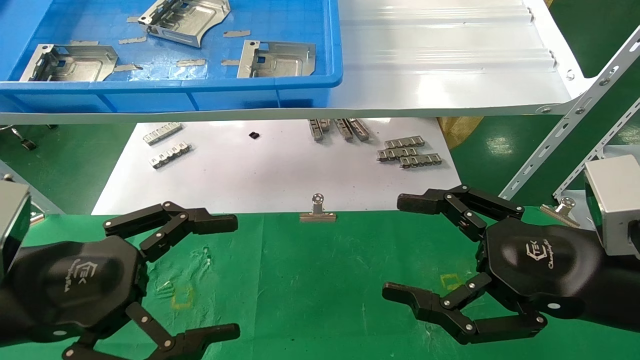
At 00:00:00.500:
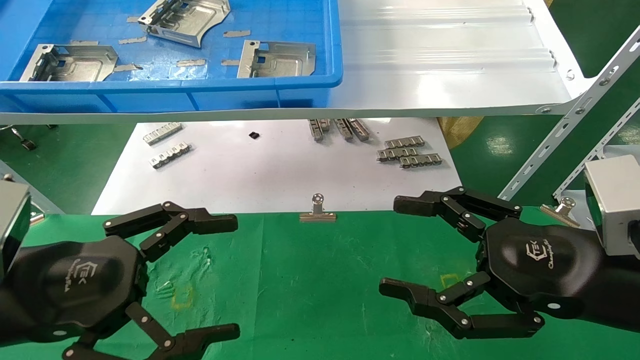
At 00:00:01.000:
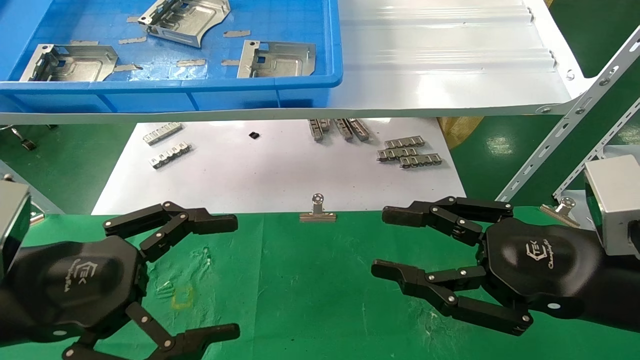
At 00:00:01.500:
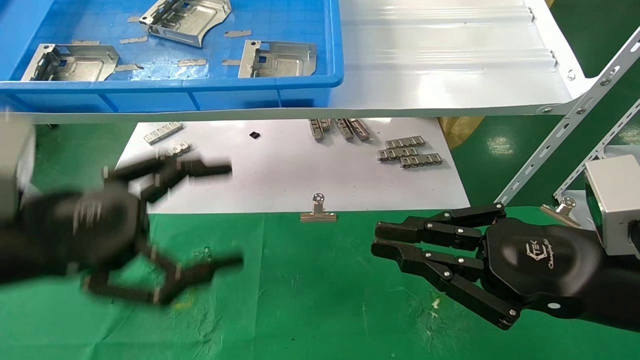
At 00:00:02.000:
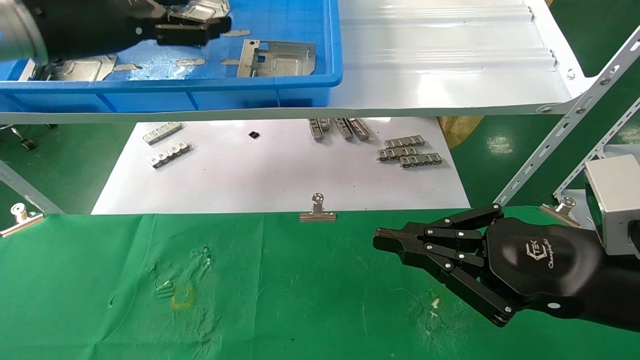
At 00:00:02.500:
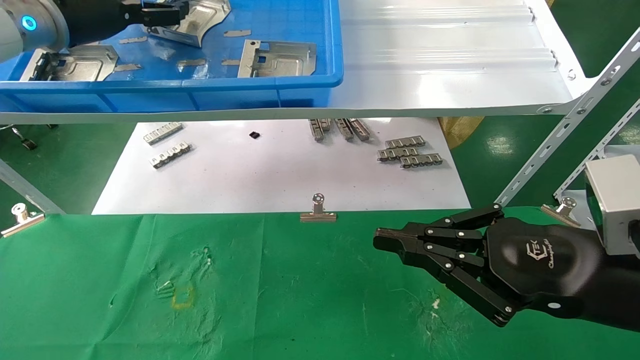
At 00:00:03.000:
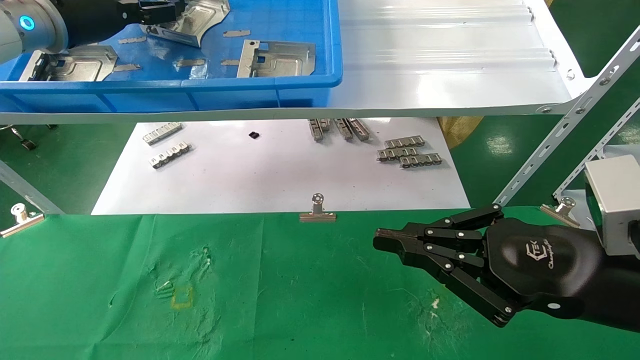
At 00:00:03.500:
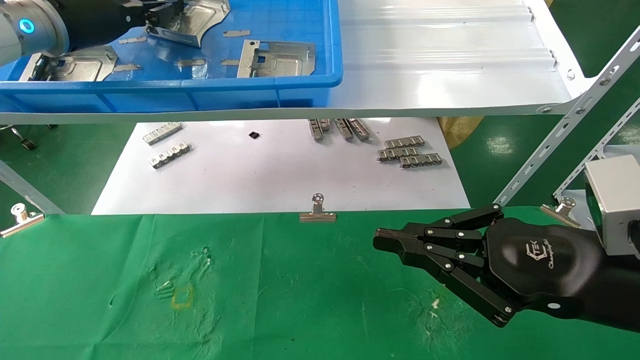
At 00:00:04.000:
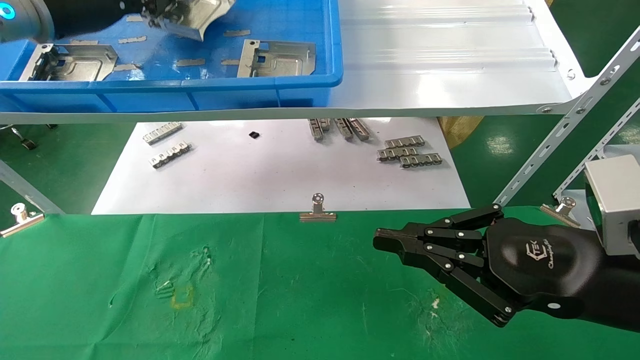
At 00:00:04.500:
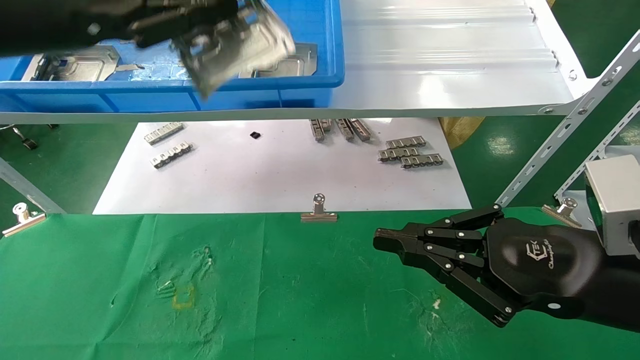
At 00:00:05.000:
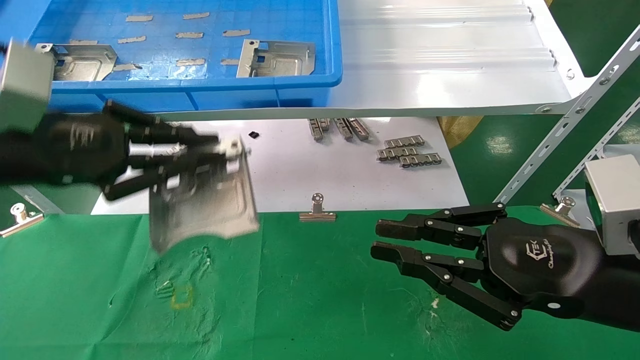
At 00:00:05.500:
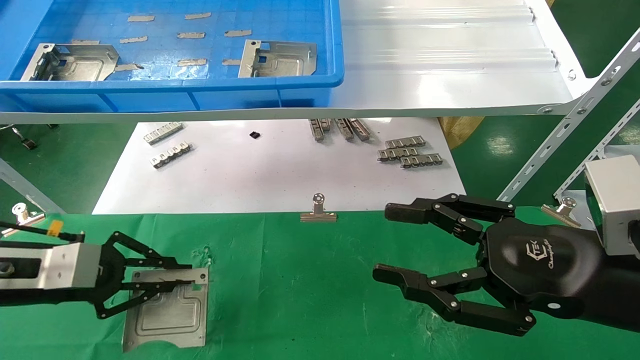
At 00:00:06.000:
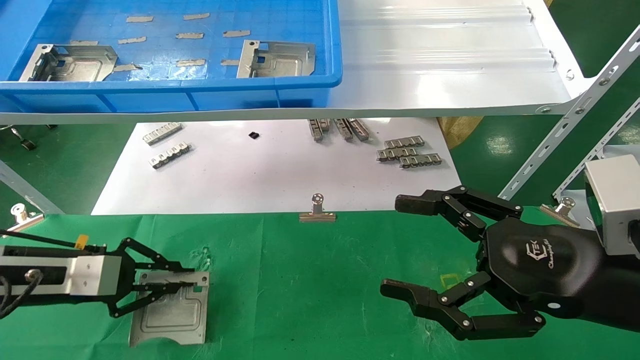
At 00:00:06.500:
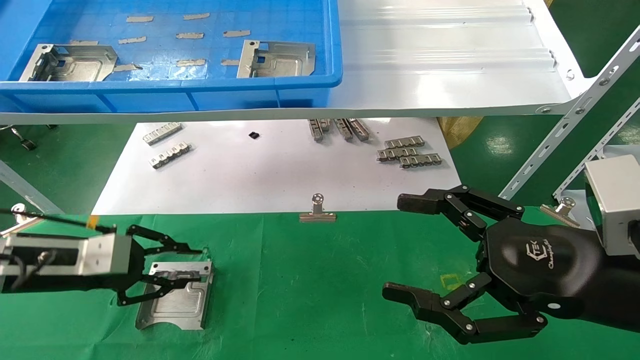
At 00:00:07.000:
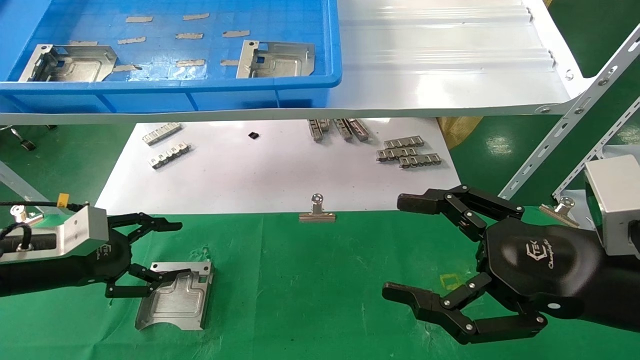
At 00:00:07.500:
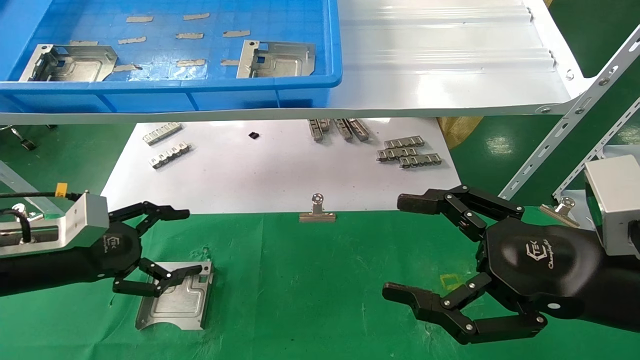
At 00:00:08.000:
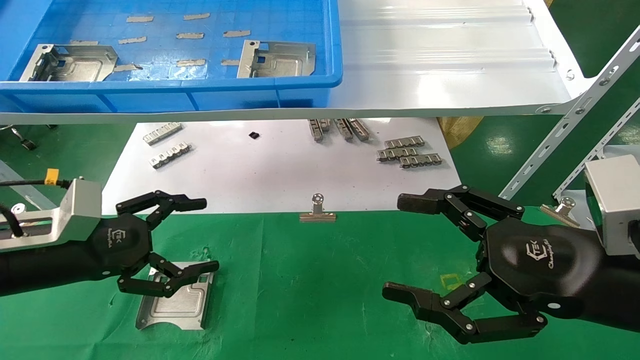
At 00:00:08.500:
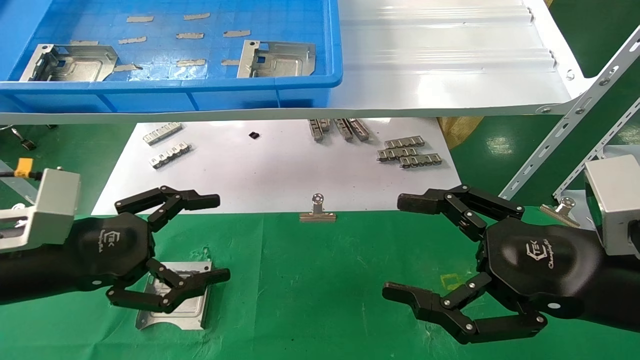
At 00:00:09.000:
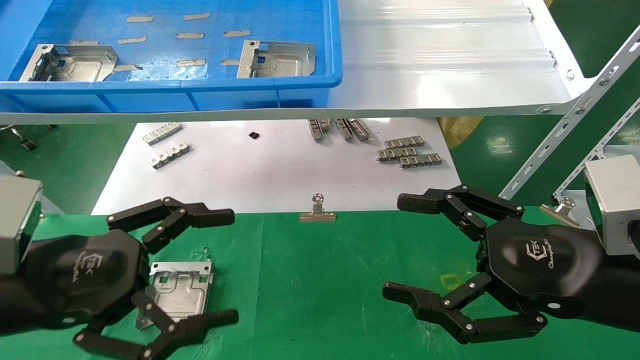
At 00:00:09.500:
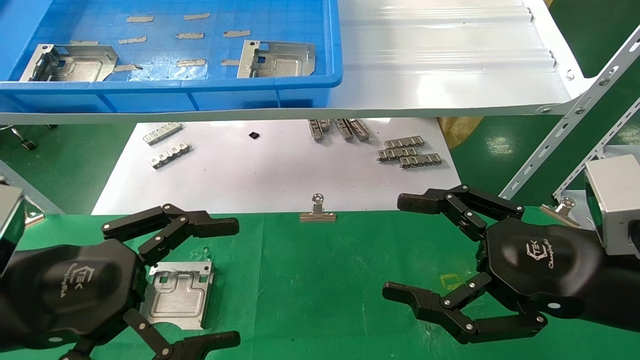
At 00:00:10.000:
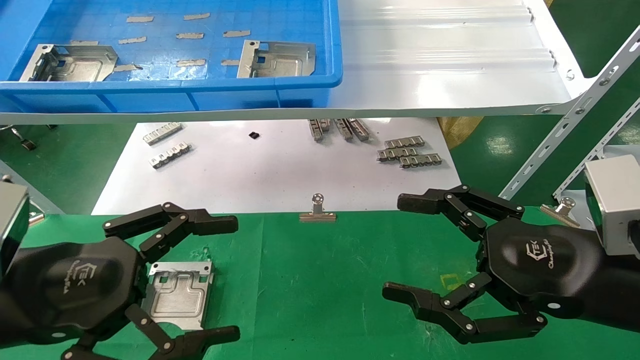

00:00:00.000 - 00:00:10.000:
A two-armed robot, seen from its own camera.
Task of the whole recording: use the mechanical arm to pick up the parts and place them on the table.
Step, 00:00:02.000 - 00:00:03.500: Pick up the hard drive bracket from the feeding area.
Step, 00:00:04.000 - 00:00:06.000: Place the hard drive bracket into the box.
00:00:00.000 - 00:00:02.000: The right gripper closes, while the left gripper is displaced upward and forward by approximately 30 cm.
00:00:02.000 - 00:00:04.000: The left gripper closes its fingers.
00:00:04.000 - 00:00:06.000: The right gripper opens. Meanwhile the left gripper shifts roughly 30 cm downward.
00:00:06.000 - 00:00:08.000: The left gripper shifts by some 5 cm, and opens.
00:00:08.000 - 00:00:10.000: The left gripper shifts some 10 cm backward and to the right.

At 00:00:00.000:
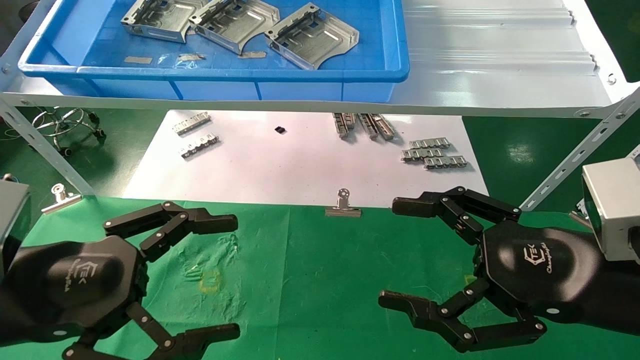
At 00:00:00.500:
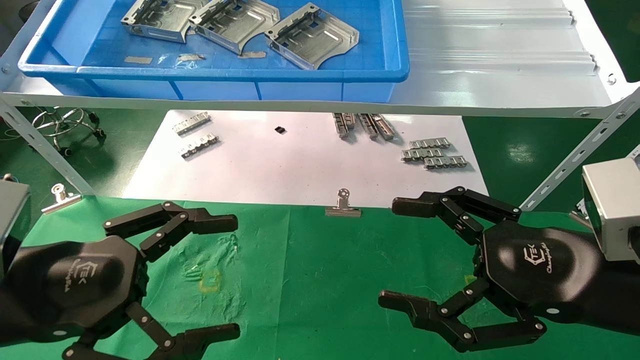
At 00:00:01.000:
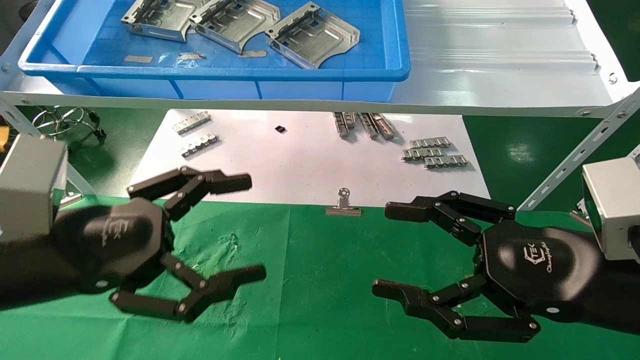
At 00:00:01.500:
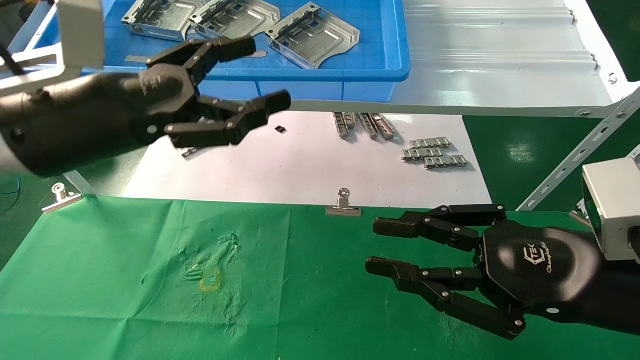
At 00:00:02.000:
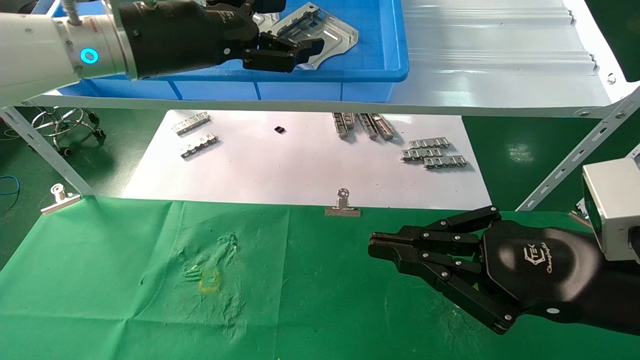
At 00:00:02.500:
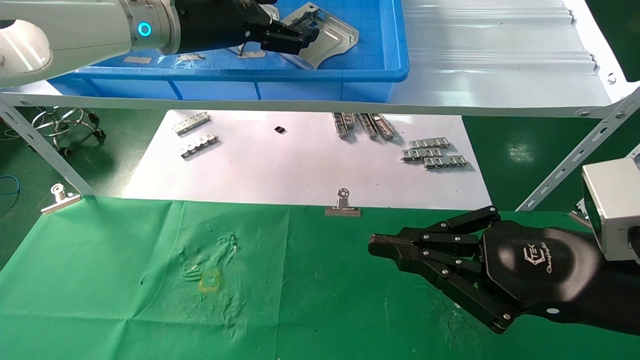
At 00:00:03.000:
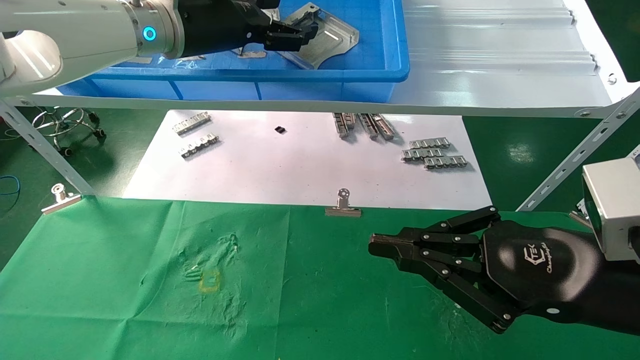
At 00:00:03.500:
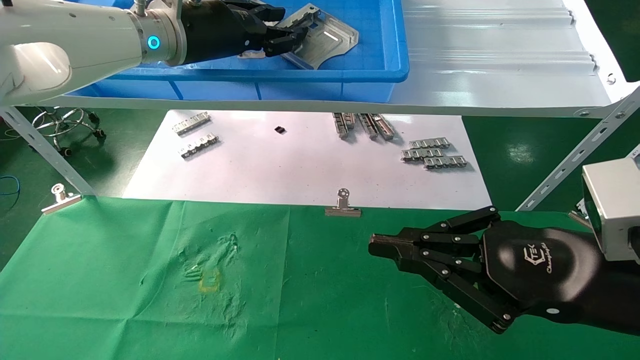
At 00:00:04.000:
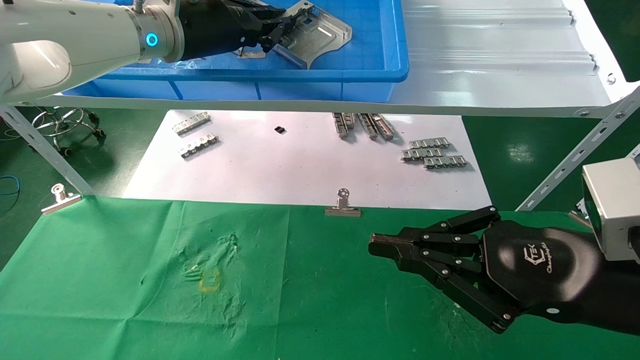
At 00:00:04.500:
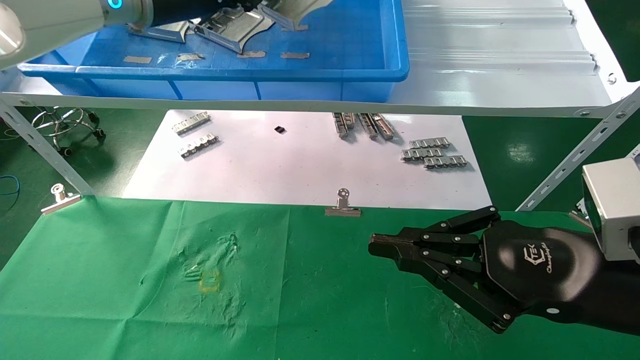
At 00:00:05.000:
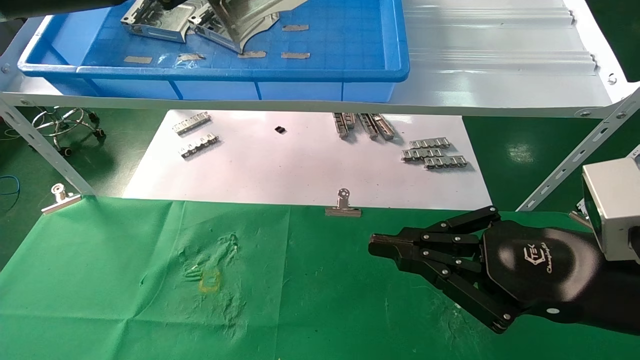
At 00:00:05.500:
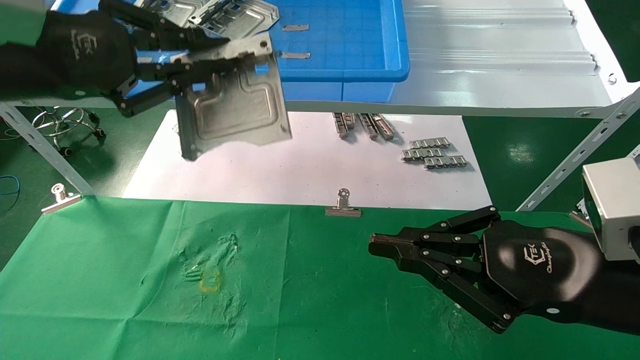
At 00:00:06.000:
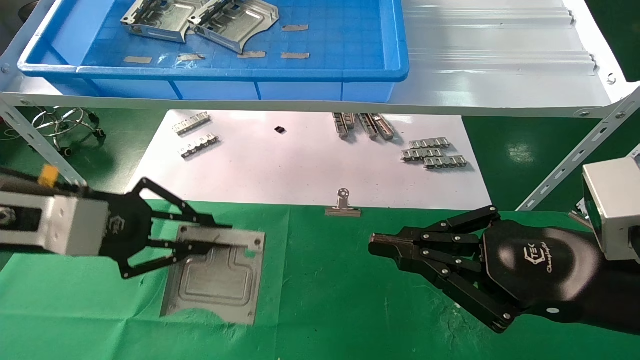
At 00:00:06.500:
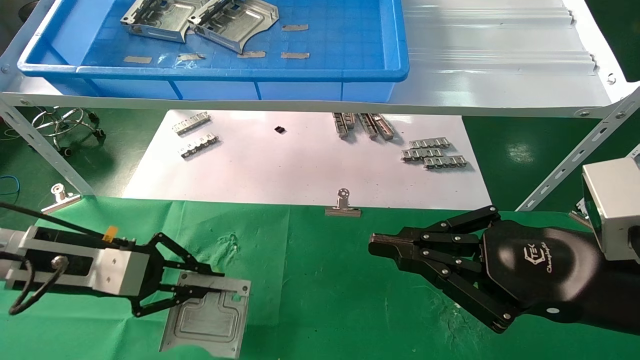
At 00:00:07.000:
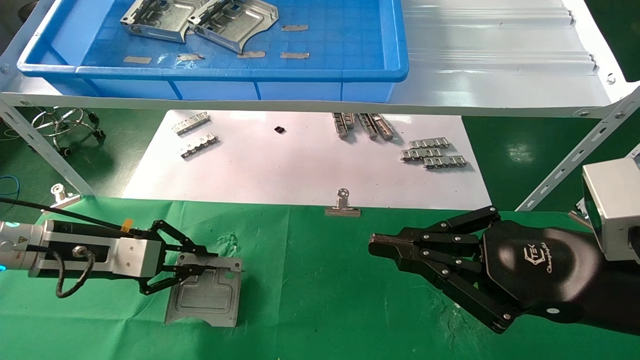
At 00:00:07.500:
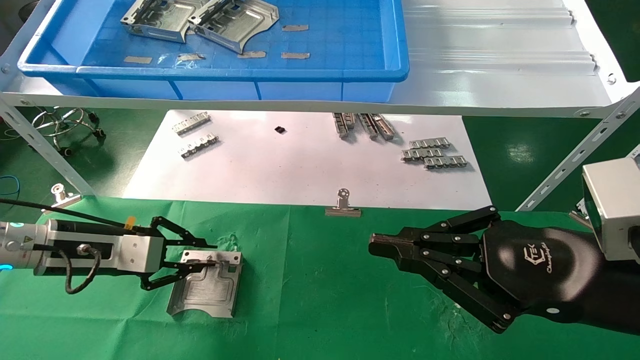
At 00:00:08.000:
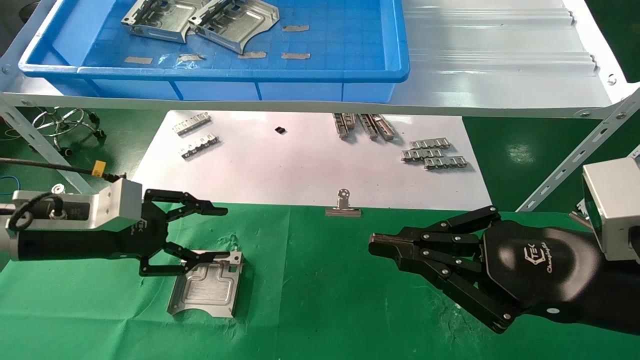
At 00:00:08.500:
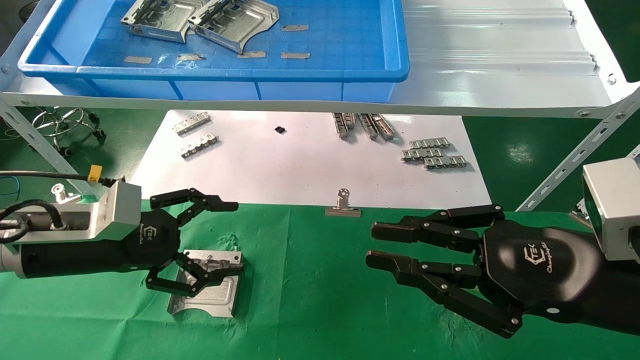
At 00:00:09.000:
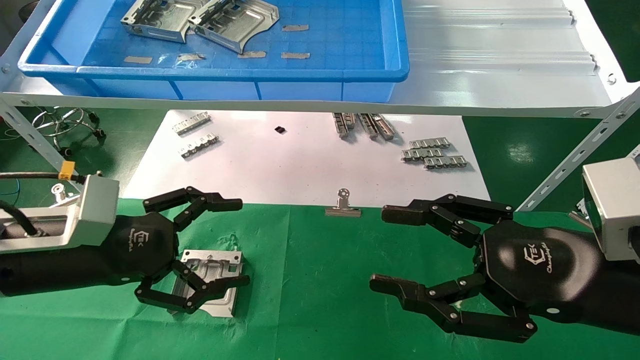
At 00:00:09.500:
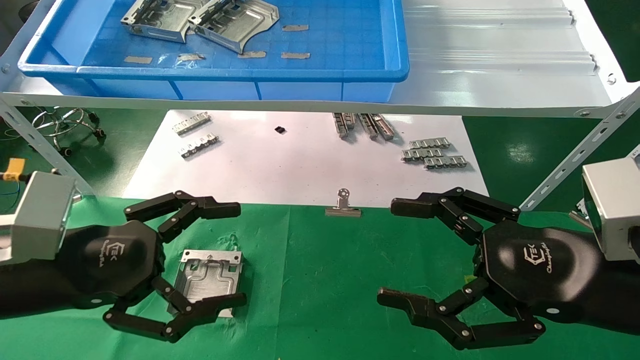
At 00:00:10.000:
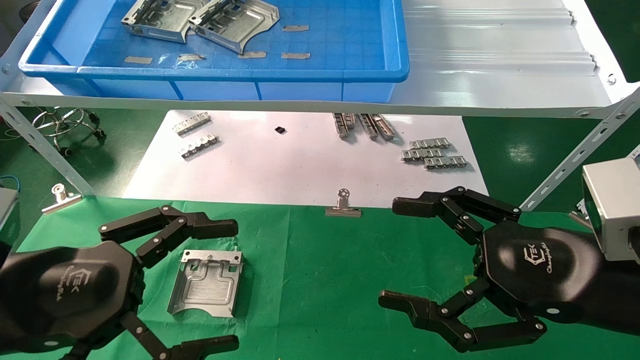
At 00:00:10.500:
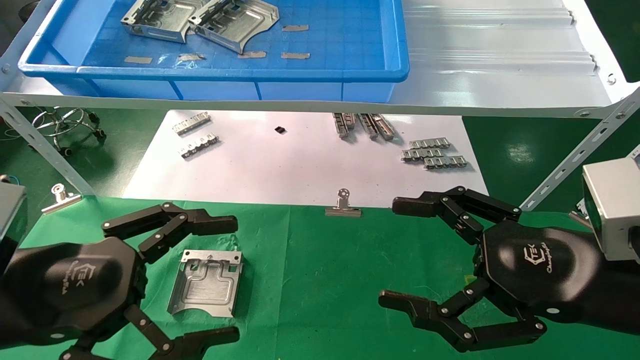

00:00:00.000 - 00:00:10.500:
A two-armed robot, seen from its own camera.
Task of the whole recording: use the mechanical arm to pick up the parts and place them on the table.
Step, 00:00:01.500 - 00:00:04.000: Pick up the hard drive bracket from the feeding area.
Step, 00:00:04.500 - 00:00:07.500: Place the hard drive bracket into the box.
00:00:00.000 - 00:00:02.000: The left gripper is displaced upward, forward and to the right by roughly 25 cm, while the right gripper closes its fingers.
00:00:02.000 - 00:00:04.000: The left gripper goes some 5 cm forward, and closes its fingers.
00:00:04.000 - 00:00:06.500: The left gripper shifts approximately 30 cm downward, to the left and backward.
00:00:06.500 - 00:00:08.500: The left gripper opens its fingers.
00:00:08.500 - 00:00:10.500: The left gripper moves backward, roughly 15 cm. Meanwhile the right gripper opens up.
